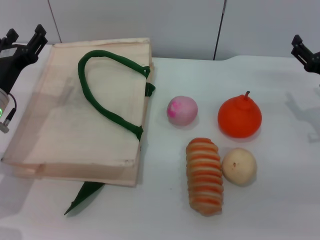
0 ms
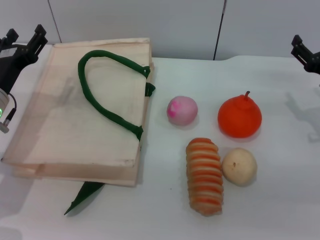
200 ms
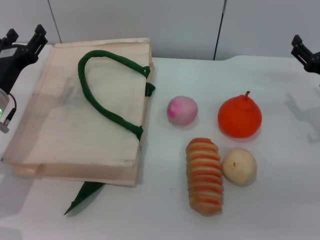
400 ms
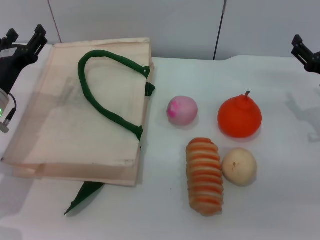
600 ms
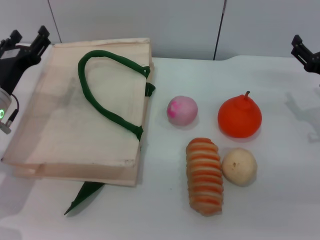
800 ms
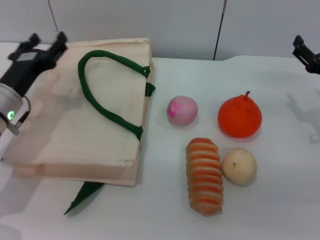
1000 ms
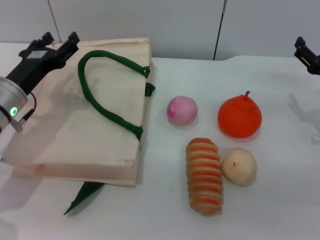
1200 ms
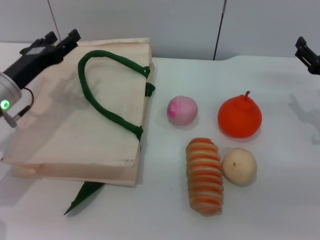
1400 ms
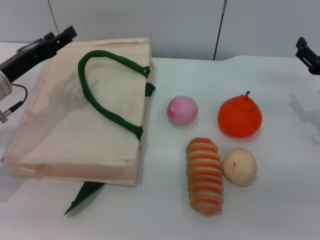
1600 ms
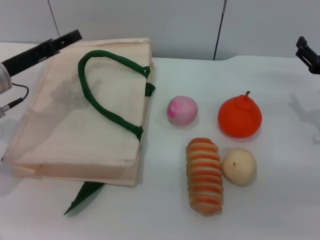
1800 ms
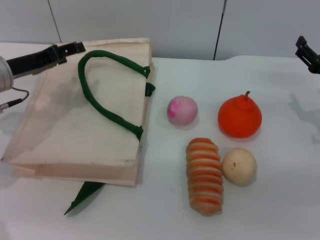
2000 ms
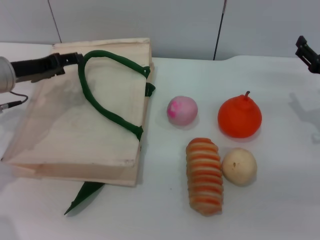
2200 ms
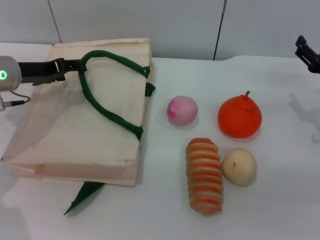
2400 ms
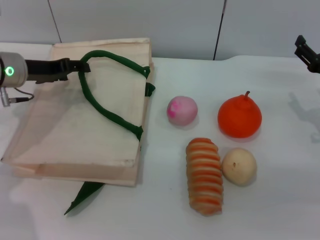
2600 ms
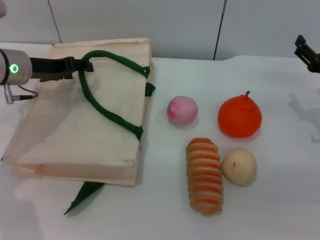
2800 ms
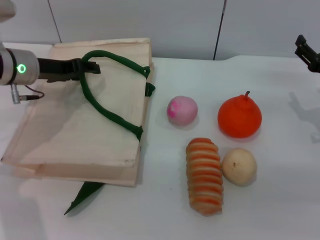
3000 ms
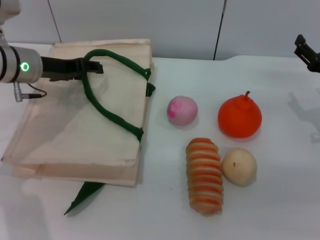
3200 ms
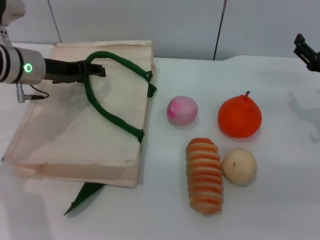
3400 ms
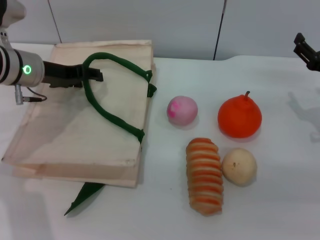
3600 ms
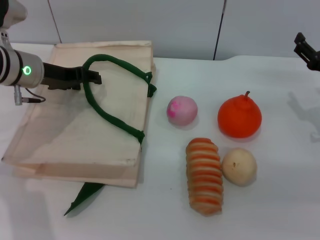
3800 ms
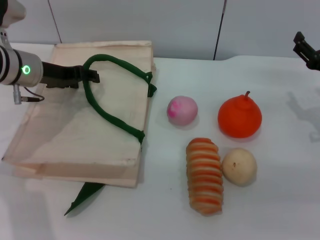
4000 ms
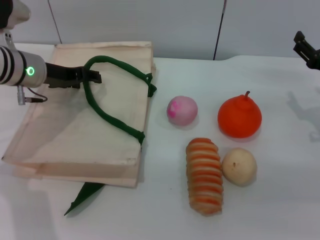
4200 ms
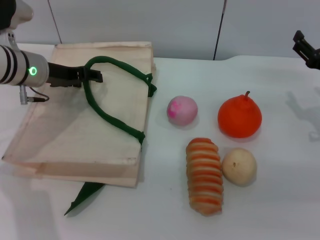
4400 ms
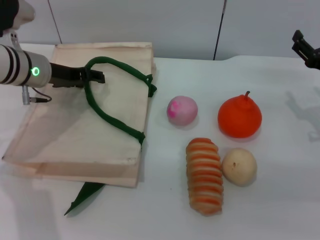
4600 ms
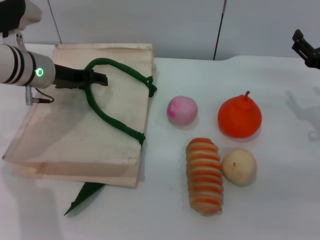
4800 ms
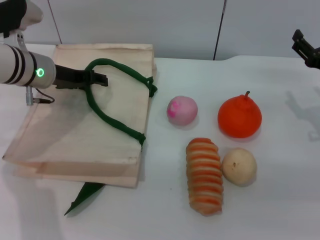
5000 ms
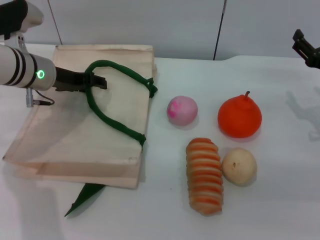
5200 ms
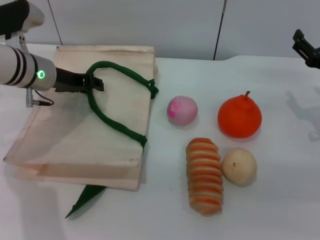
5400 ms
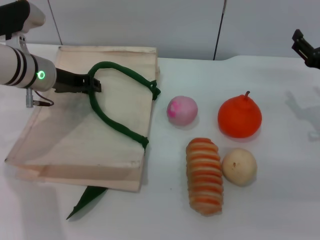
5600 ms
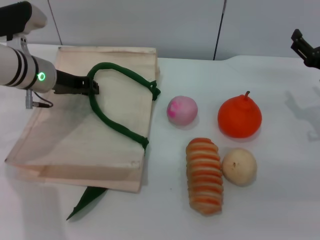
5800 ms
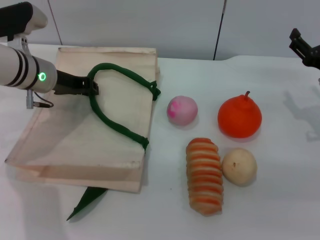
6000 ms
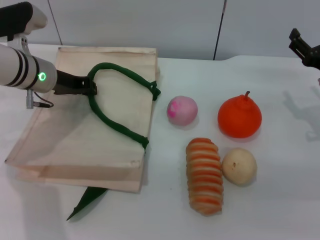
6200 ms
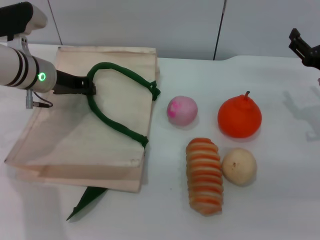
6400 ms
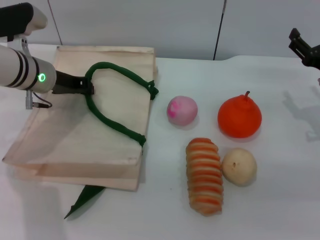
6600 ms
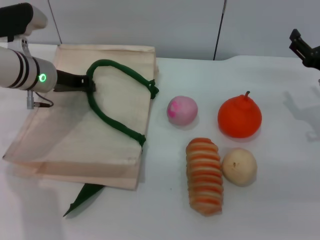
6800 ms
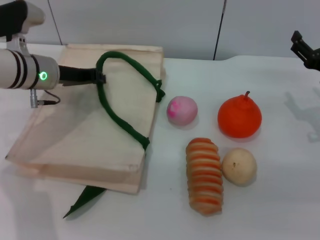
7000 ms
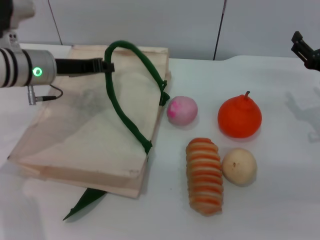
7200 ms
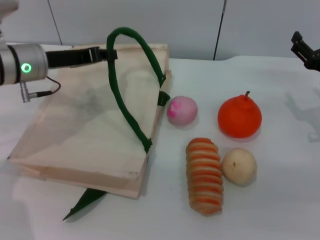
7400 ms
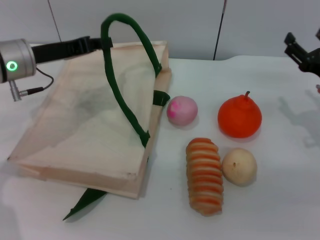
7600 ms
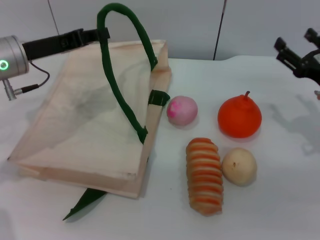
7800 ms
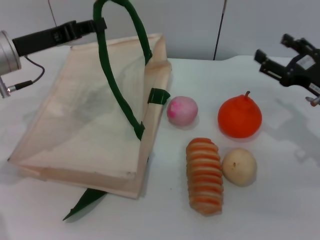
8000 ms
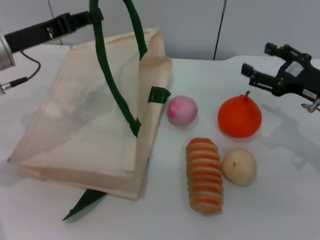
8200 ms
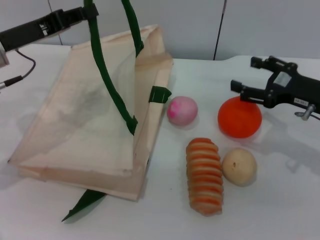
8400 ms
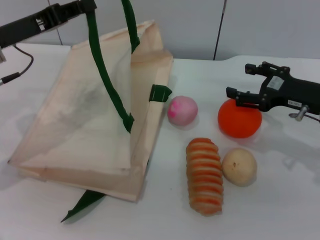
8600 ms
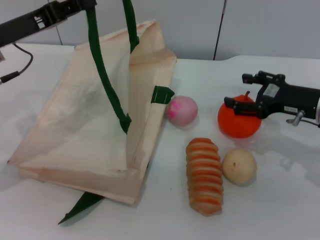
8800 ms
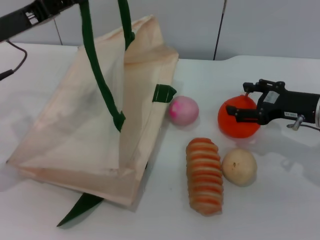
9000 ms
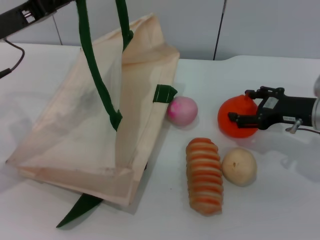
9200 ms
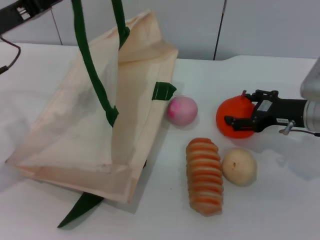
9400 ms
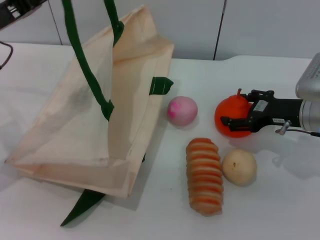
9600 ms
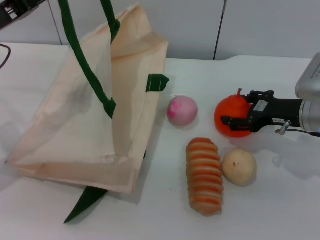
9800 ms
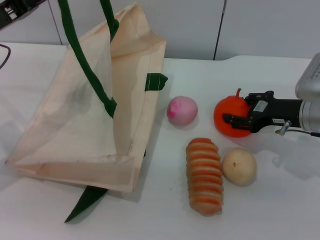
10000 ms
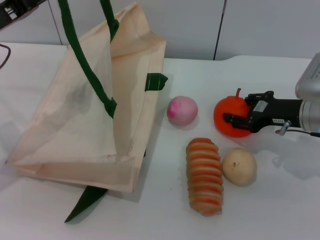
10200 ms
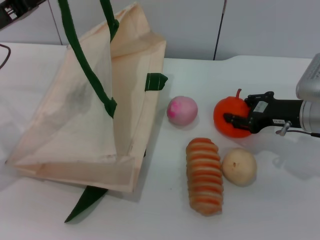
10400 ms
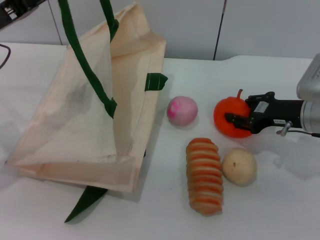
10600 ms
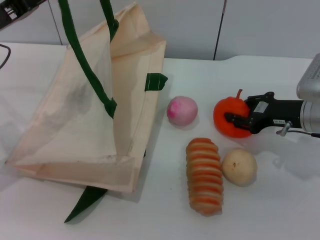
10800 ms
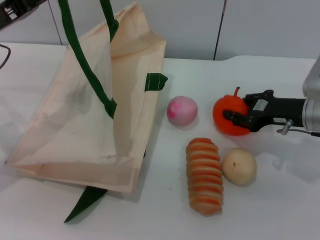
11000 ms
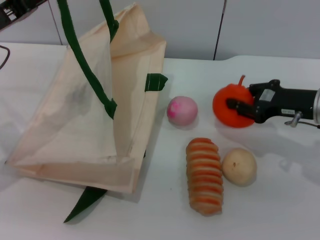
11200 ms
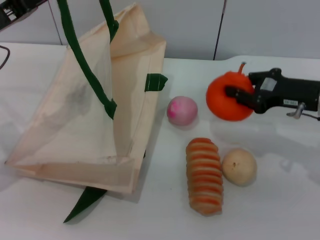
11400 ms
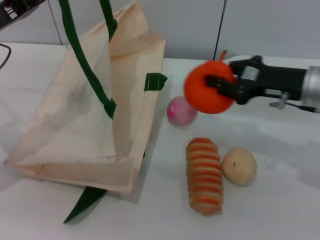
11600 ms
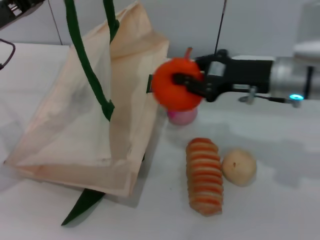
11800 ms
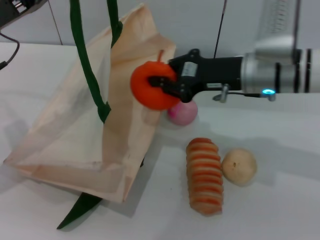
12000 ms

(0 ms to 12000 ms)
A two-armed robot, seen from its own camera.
Task of the whole recording: pick up the orange and peach from the table and place it in the white handbag.
Step, 0 ms - 7400 ms: Lift the woven bag with the left gripper to open it.
Step, 7600 ms - 11400 ms: Pick up the orange with the right gripper.
1600 ms - 3000 ms: The left gripper is displaced forward by some 5 cm.
3000 ms - 4400 ms: There are only small adjustments of the grippers.
4400 ms - 6000 ms: The left gripper closes.
7600 ms - 9000 ms: The left gripper changes place by about 5 cm.
9000 ms - 10400 ms: The right gripper closes.
10400 ms - 12000 ms: The right gripper is displaced to the left and upward by some 10 cm, and closes.

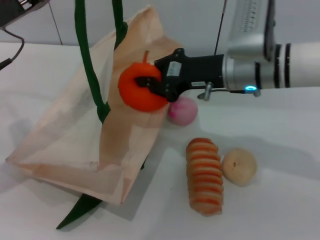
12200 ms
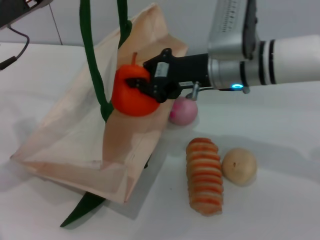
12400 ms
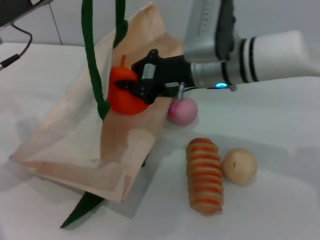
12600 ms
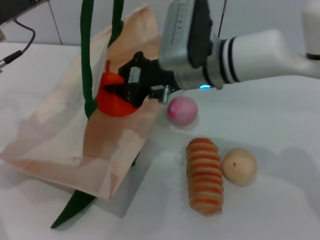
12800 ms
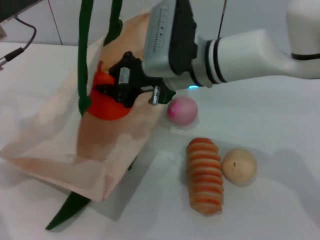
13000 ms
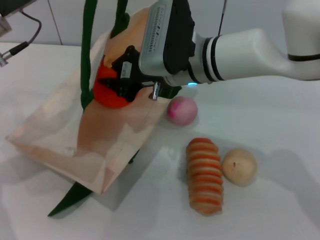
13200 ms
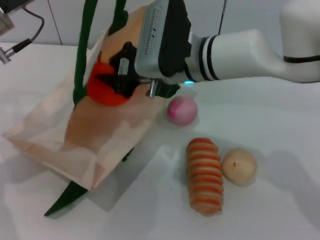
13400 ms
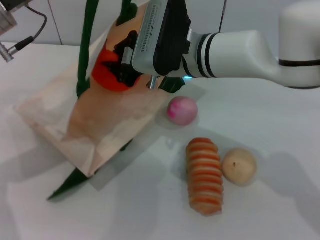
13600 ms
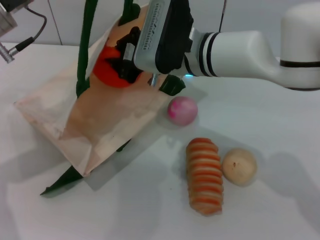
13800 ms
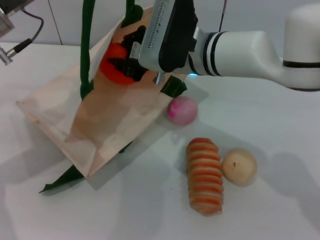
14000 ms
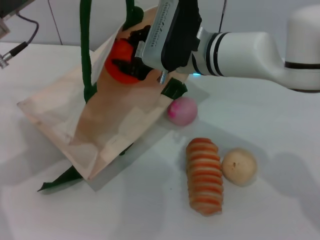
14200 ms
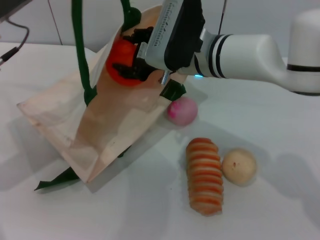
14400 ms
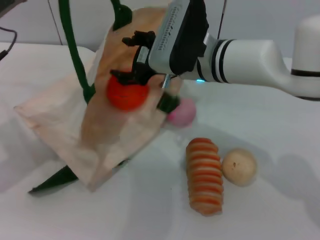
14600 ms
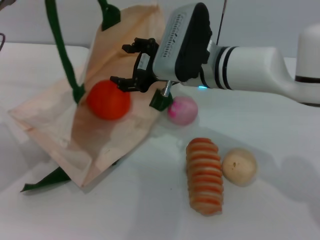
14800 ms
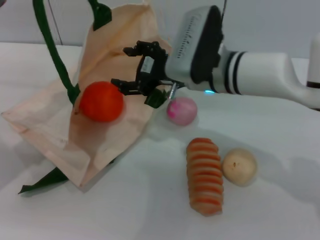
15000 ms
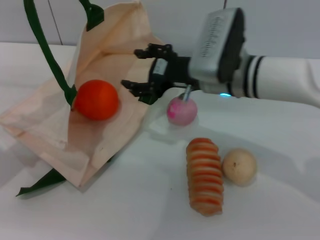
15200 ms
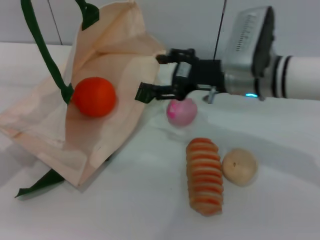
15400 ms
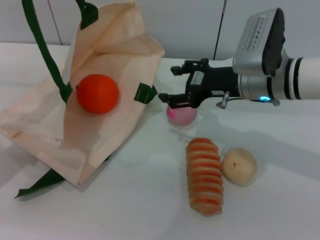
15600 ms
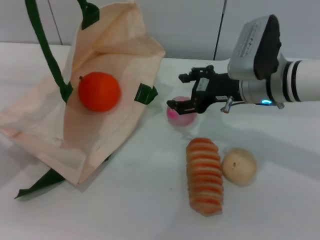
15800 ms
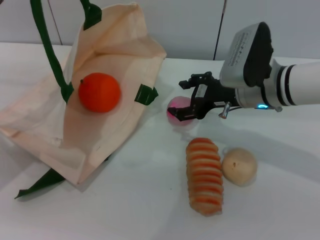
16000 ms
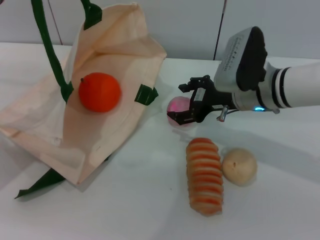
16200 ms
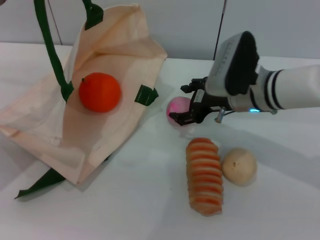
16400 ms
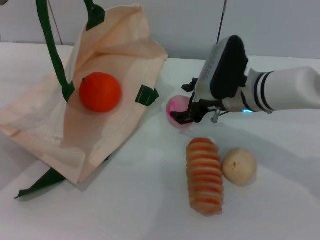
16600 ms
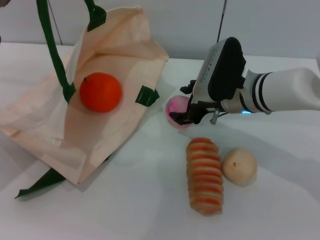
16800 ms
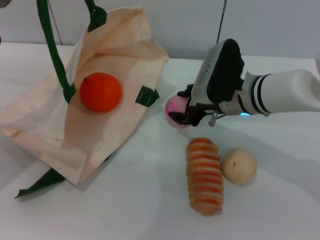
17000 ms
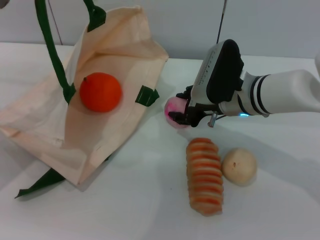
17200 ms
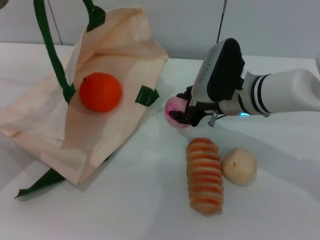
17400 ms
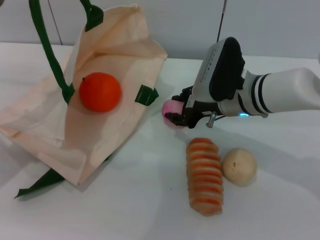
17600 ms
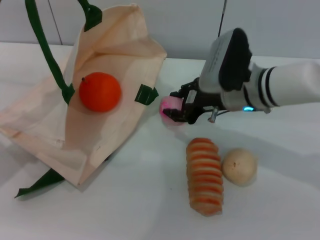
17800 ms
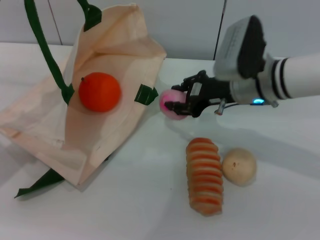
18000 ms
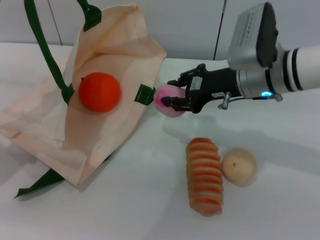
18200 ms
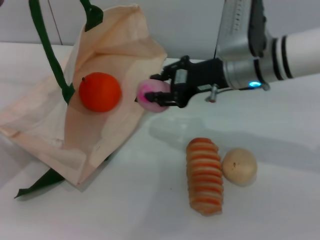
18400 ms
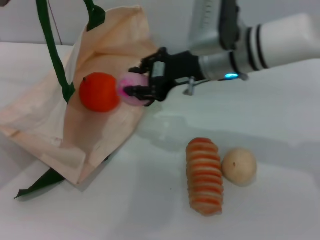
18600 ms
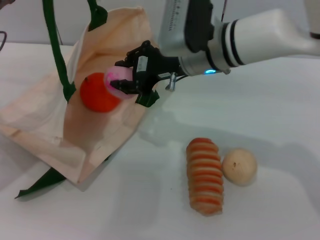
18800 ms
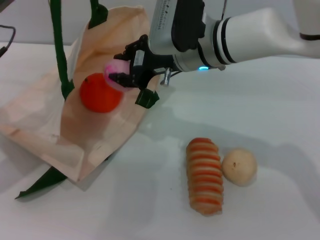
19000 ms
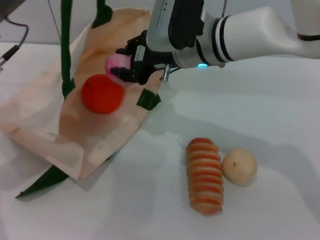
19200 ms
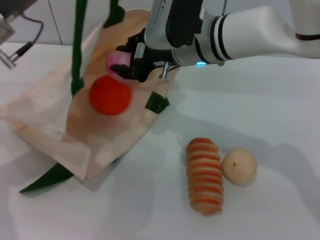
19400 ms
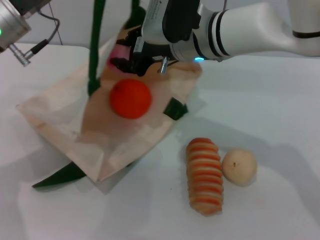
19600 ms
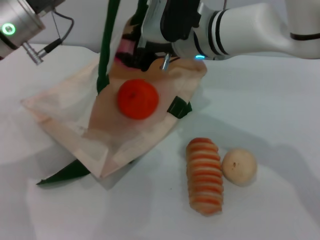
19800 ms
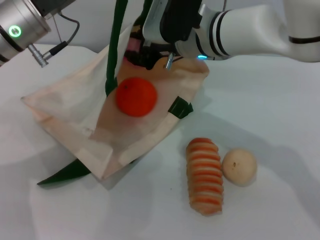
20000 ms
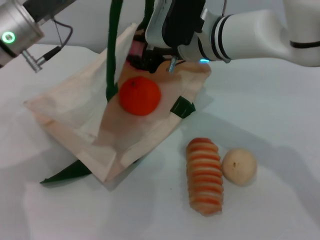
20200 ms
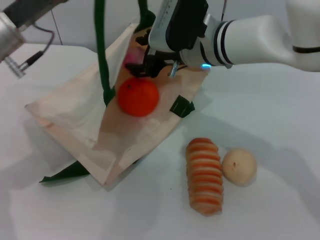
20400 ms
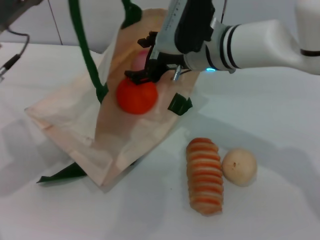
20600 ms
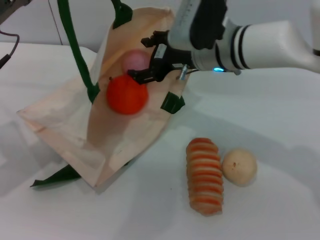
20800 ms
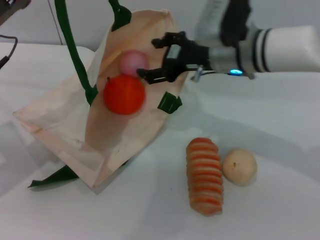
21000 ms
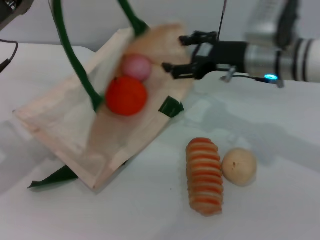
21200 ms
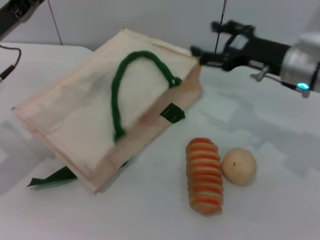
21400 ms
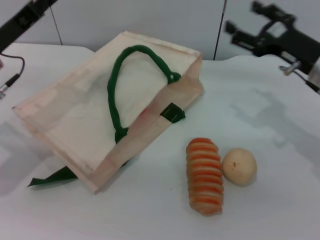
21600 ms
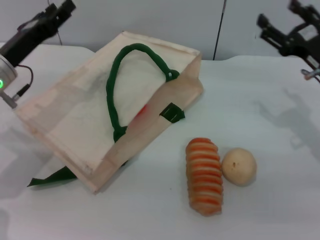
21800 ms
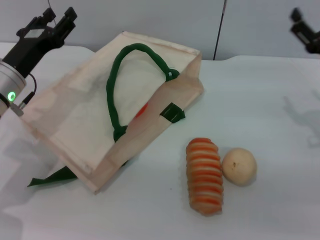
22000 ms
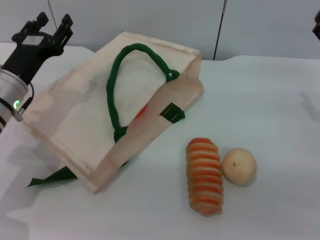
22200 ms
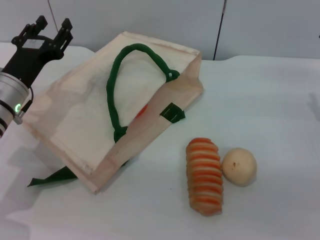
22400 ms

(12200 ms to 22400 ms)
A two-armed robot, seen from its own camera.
Task of the whole recording: pick up the orange and peach from the table and place it in the white handbag.
Step, 12200 ms - 15400 ms: Place the orange into the woven bag with the right gripper.
Step, 15800 ms - 18200 ms: Pick up the peach with the right gripper.
Step, 18400 ms - 21000 ms: Place the peach into the woven bag with the right gripper.
12200 ms - 13600 ms: The right gripper is displaced to the left by about 10 cm.
13600 ms - 15200 ms: The right gripper shifts approximately 5 cm to the right, and opens. The left gripper goes about 5 cm to the left.
15200 ms - 16600 ms: The right gripper shifts by approximately 5 cm.
16600 ms - 18000 ms: The right gripper closes up.
18000 ms - 19400 ms: The left gripper moves to the right, about 5 cm; the right gripper goes approximately 10 cm to the left and upward.
19400 ms - 21000 ms: The right gripper goes about 5 cm to the right, and opens up.
21000 ms - 22400 ms: The right gripper is displaced to the right by some 20 cm; the left gripper is displaced downward by approximately 10 cm, and opens up.
